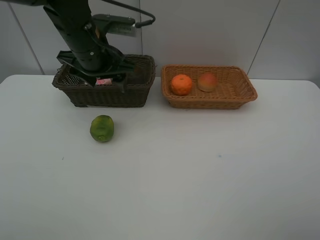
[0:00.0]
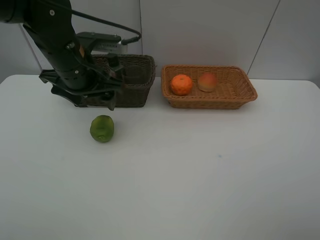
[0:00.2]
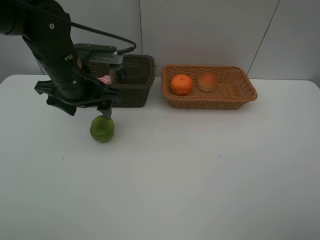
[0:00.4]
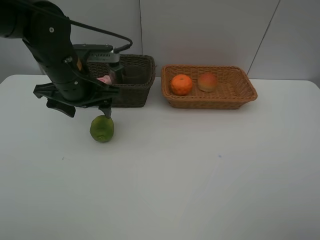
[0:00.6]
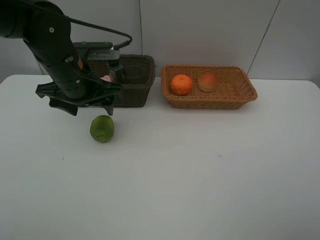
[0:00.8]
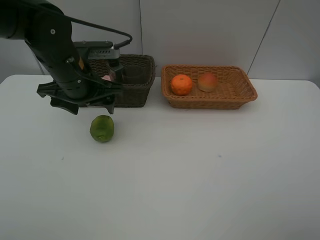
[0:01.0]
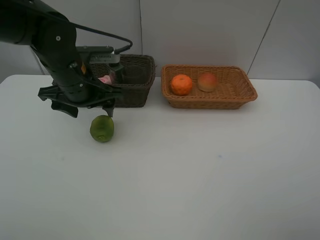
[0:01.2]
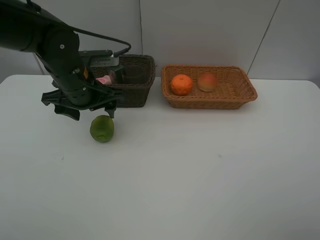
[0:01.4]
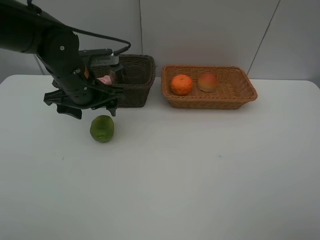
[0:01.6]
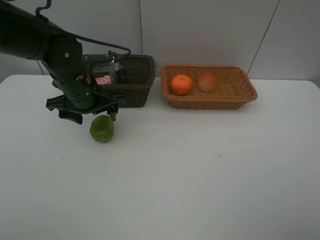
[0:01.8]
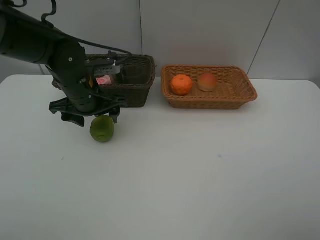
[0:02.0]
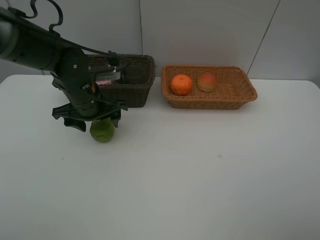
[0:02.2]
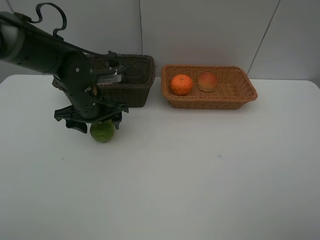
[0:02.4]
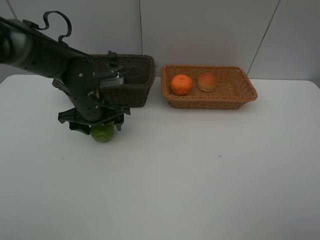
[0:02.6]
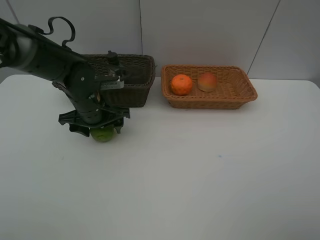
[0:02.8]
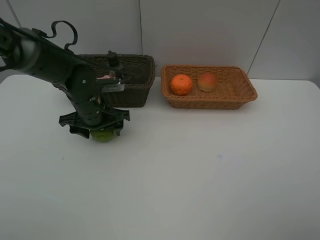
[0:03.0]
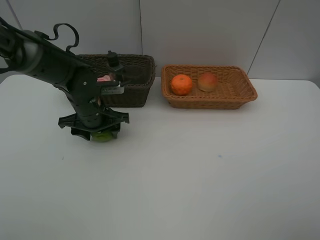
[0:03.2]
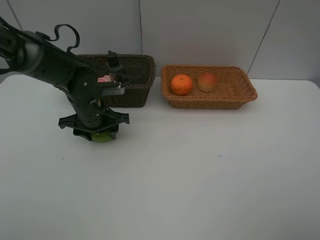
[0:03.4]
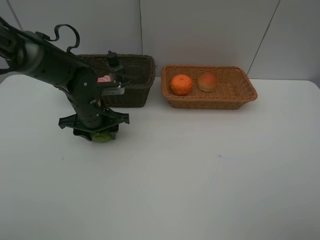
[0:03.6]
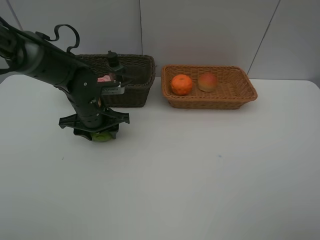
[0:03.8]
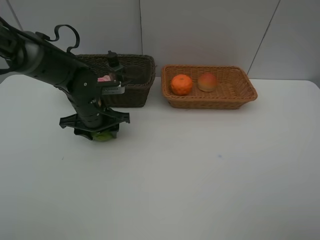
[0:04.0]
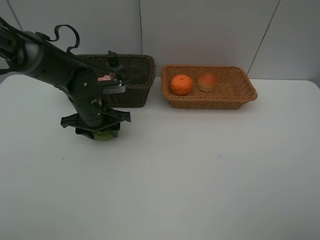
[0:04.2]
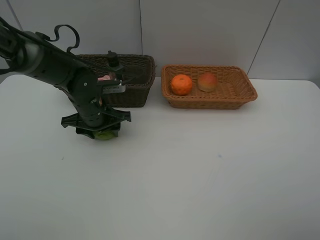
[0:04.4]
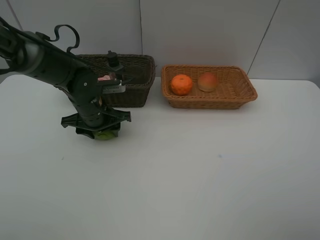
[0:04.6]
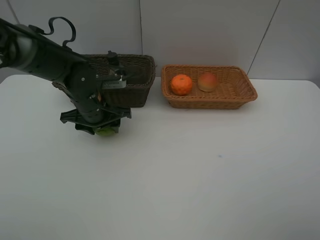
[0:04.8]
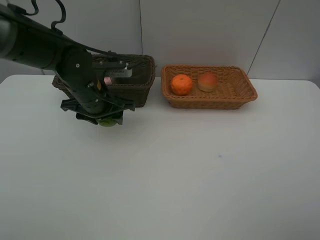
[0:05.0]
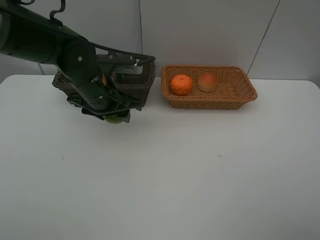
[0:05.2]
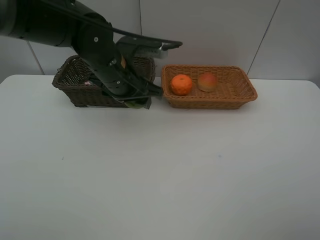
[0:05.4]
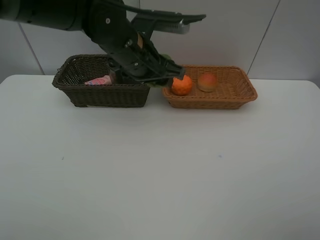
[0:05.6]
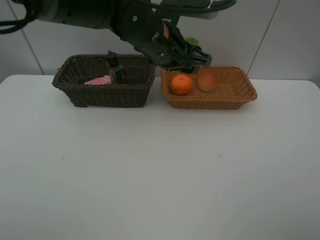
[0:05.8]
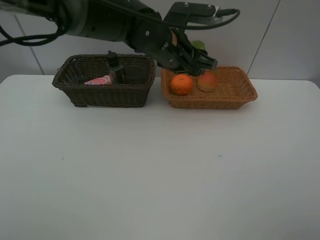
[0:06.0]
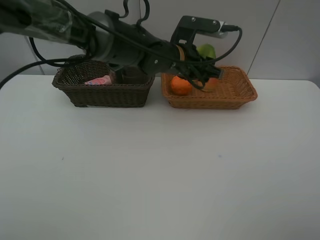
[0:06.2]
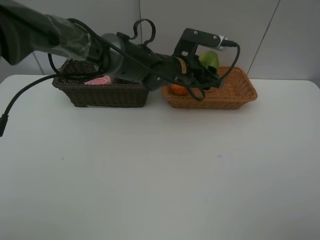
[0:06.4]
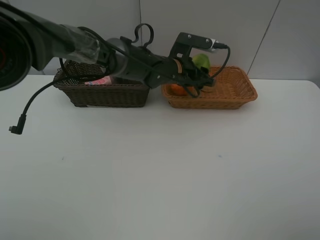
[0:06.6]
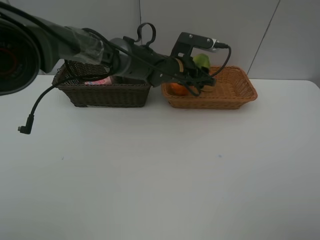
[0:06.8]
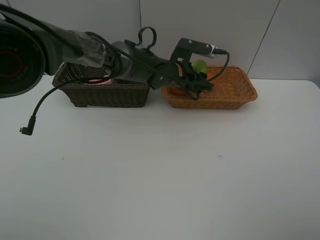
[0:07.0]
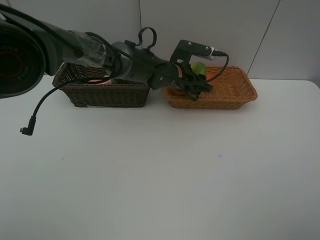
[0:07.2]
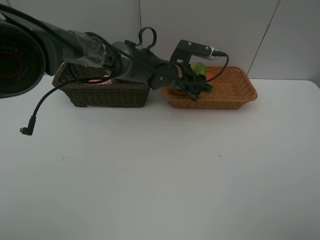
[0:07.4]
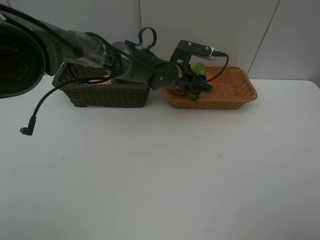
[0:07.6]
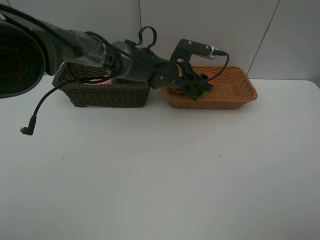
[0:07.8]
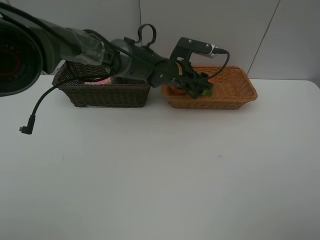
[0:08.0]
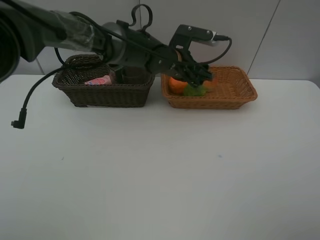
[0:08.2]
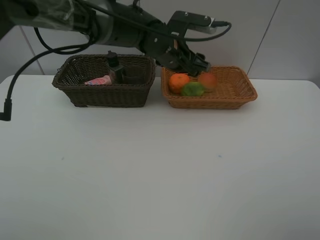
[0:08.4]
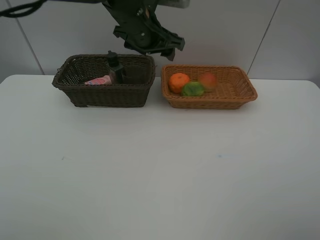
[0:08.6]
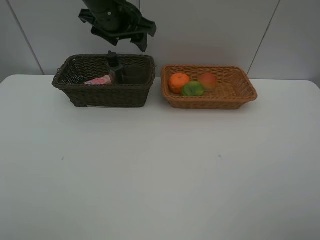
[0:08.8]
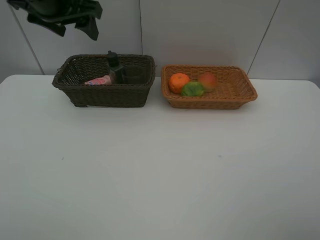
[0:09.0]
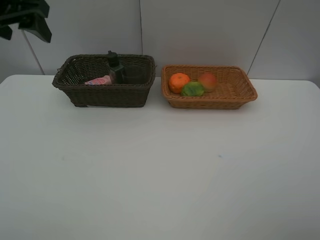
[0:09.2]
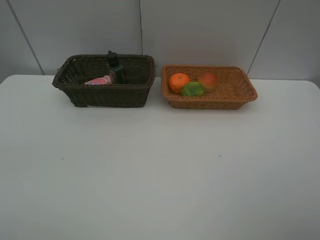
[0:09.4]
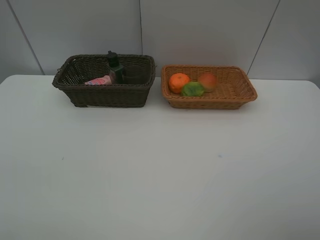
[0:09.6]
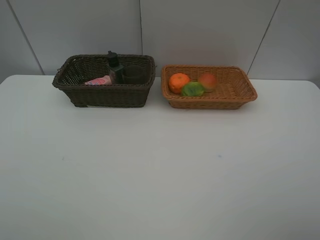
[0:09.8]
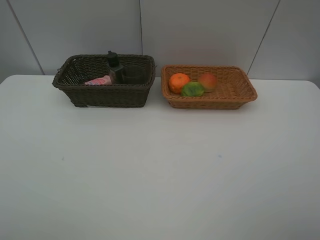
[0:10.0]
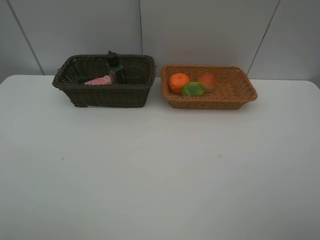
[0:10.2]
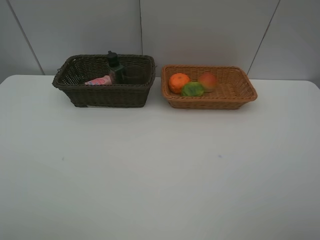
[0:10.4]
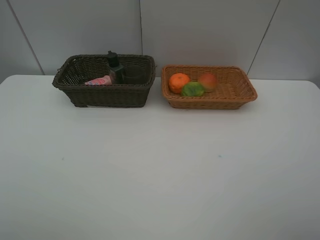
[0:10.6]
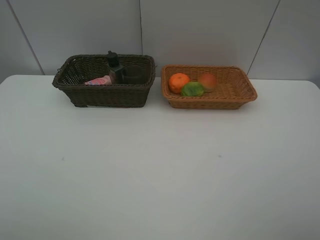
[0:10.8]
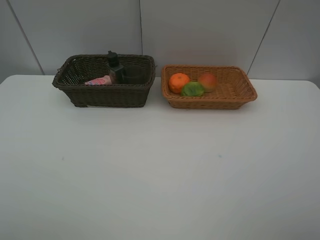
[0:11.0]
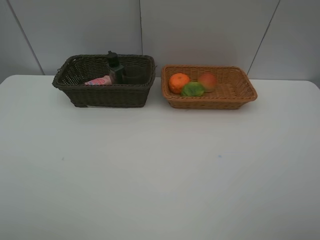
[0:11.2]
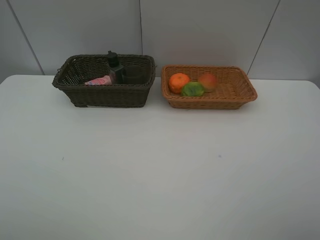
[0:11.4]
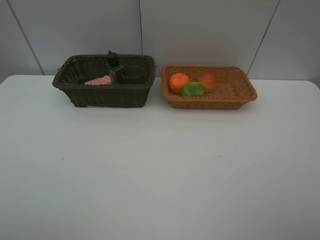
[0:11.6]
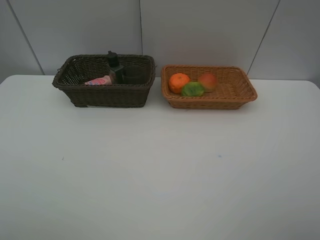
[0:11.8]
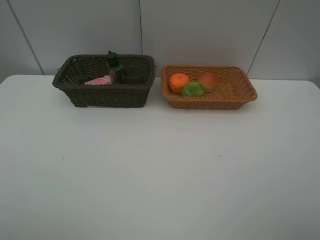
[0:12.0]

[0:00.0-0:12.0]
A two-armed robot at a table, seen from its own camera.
Task of the whole recording: place multiple objects separately in different baskets.
0:00.0 to 0:01.6: The left gripper heads downward, covering some 5 cm.
0:01.6 to 0:03.0: The left gripper moves downward, roughly 5 cm.
0:03.0 to 0:04.4: Neither gripper changes place.
0:04.4 to 0:06.0: The left gripper shifts about 20 cm to the right and upward.
0:06.0 to 0:07.6: The left gripper shifts approximately 10 cm downward and forward.
0:07.6 to 0:09.0: The left gripper shifts some 30 cm to the left and upward.
0:09.0 to 0:10.4: The left gripper travels backward by some 35 cm.

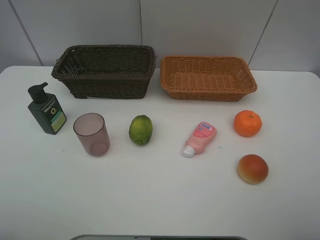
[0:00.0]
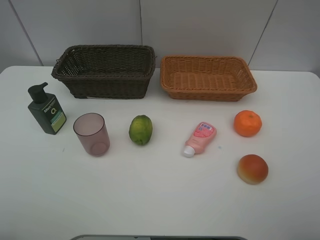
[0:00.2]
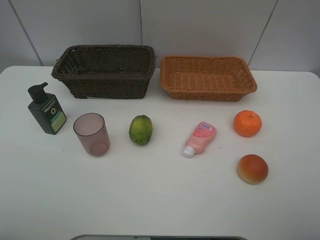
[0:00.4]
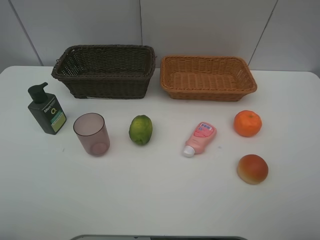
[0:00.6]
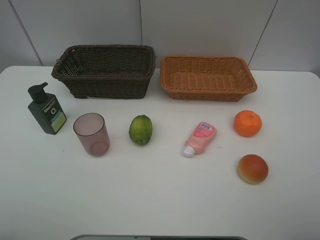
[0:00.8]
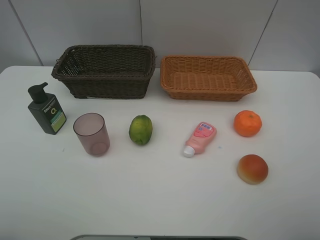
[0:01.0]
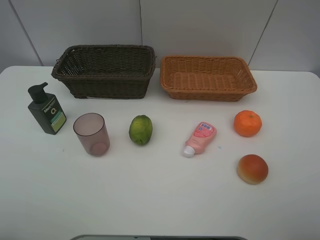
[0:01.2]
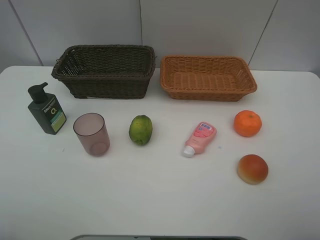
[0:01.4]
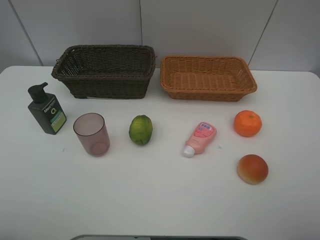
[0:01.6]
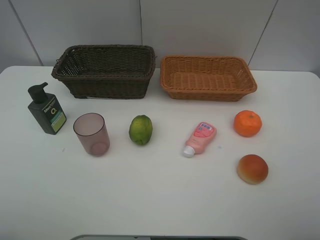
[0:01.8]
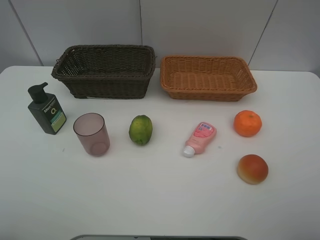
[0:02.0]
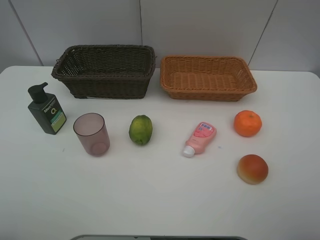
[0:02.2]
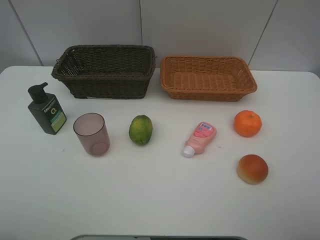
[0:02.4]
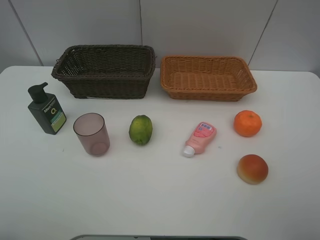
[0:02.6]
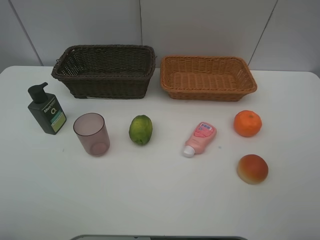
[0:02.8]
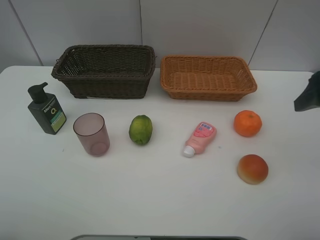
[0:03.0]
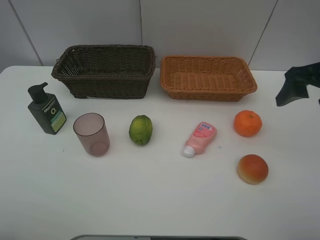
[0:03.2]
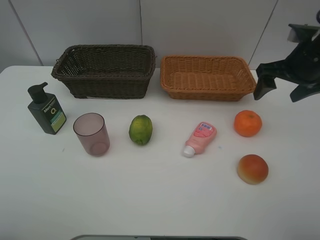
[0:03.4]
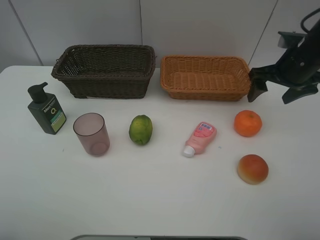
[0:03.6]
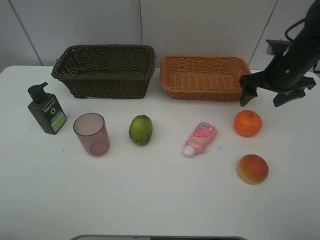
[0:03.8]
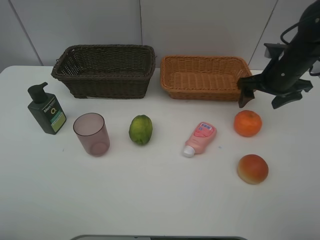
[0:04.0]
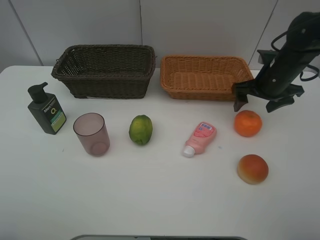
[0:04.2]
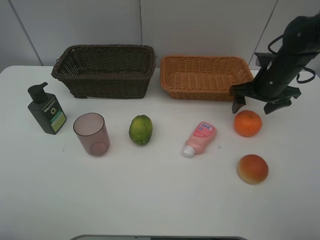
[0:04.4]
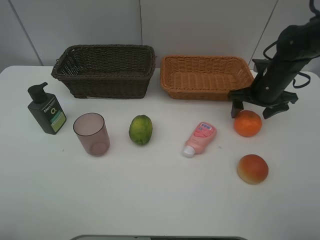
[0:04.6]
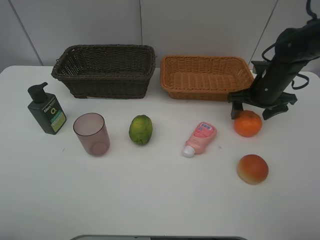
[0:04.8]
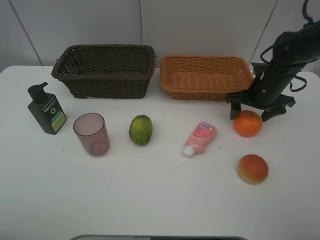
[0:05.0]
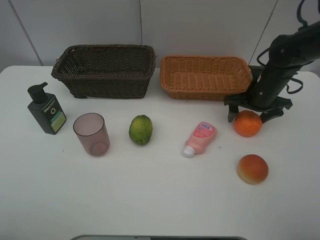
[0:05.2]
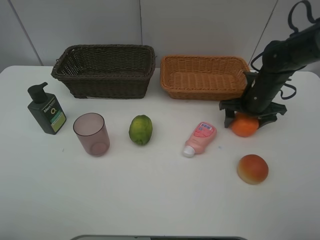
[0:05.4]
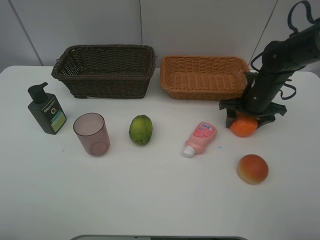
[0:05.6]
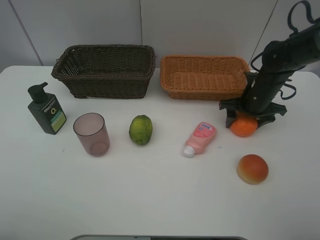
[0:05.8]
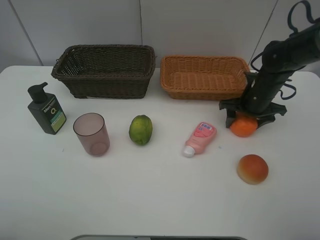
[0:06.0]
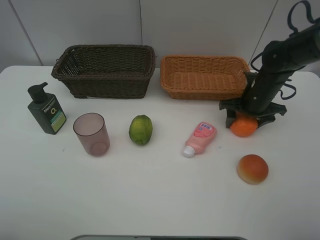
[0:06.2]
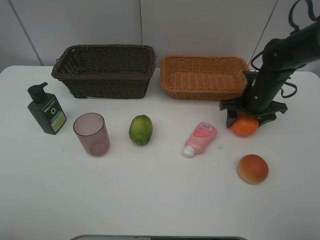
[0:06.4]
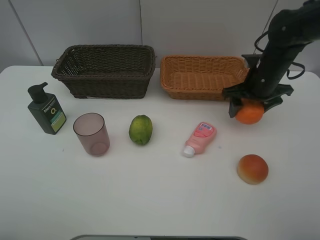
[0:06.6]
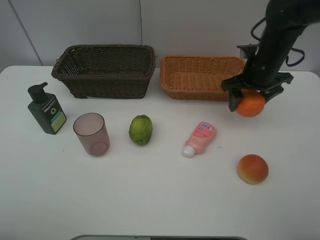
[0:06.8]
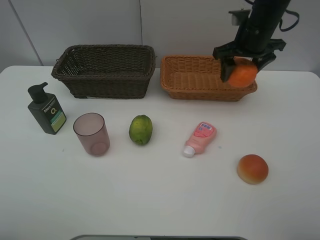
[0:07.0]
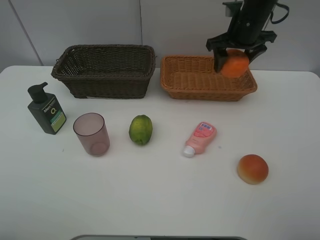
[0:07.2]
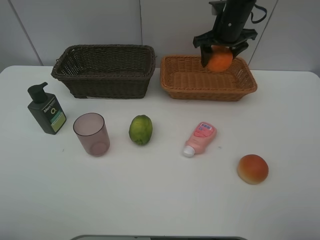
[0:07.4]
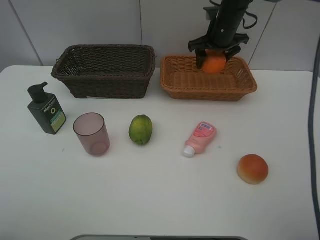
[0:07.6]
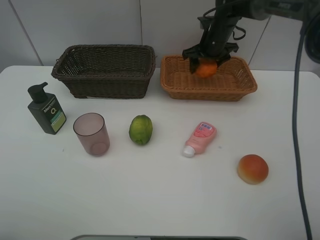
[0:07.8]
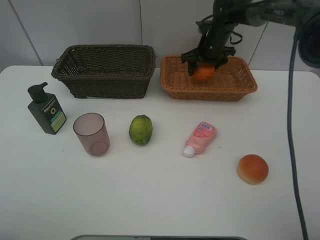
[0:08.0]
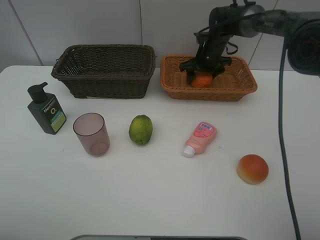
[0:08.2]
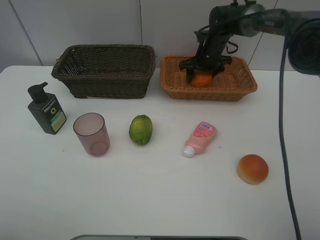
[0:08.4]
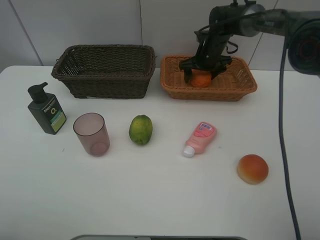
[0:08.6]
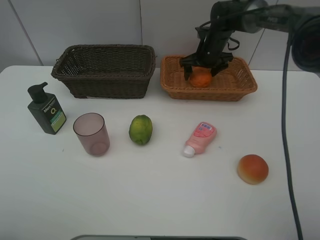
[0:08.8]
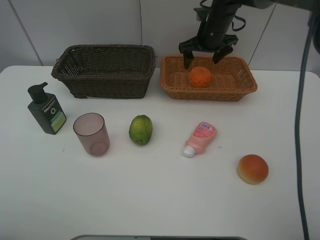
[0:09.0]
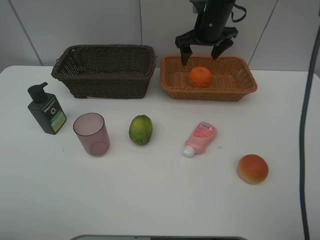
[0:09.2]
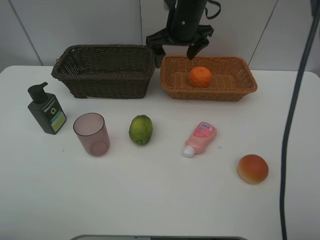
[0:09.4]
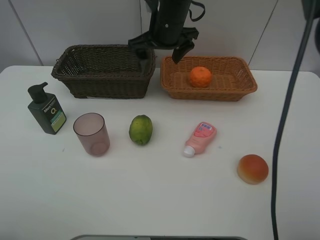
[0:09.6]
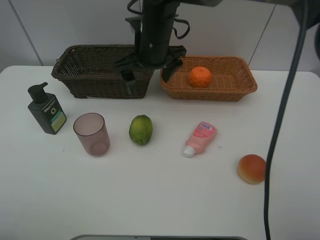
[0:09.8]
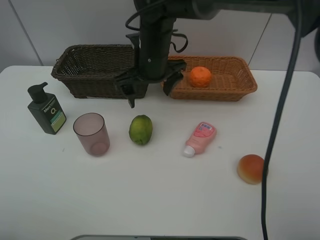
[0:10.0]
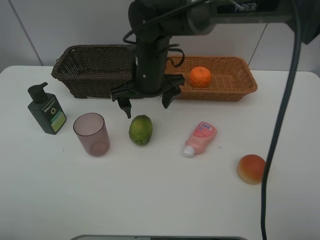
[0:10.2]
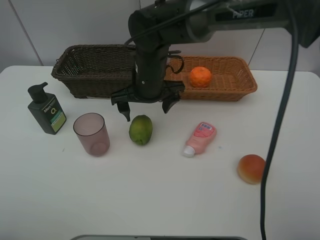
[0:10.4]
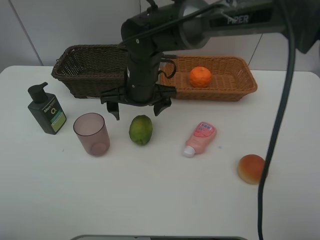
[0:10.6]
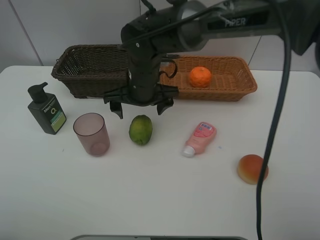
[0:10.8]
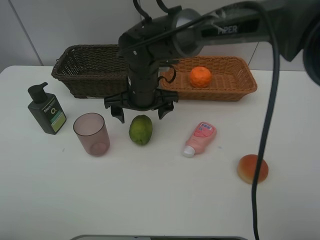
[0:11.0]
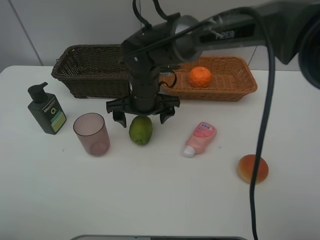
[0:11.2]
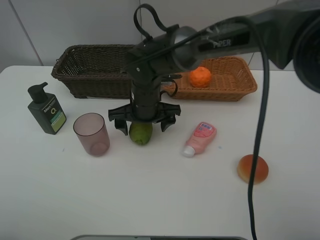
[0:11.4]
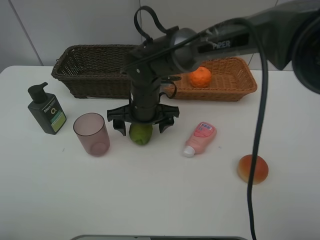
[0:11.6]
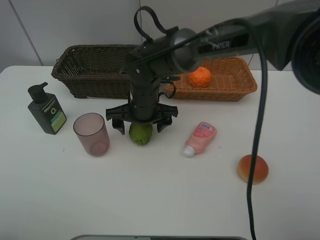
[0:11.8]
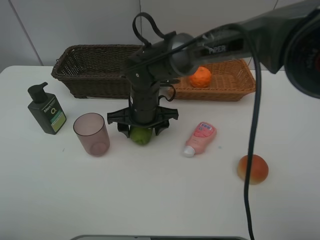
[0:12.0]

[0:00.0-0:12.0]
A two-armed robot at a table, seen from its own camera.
Task of the whole recording: place multiple objects separately in different baskets.
0:00.0 to 0:01.6: The two grippers keep their place.
0:01.6 to 0:03.0: The right gripper is displaced forward by approximately 20 cm.
0:03.0 to 0:04.4: The right gripper goes about 20 cm forward and downward.
0:04.4 to 0:06.0: The right gripper closes its fingers.
0:06.0 to 0:07.6: The right gripper goes roughly 20 cm forward, upward and to the left.
0:07.6 to 0:09.0: The right gripper travels downward and back again, some 10 cm each way, and opens up.
0:09.0 to 0:10.4: The right gripper shifts roughly 20 cm to the left and backward.
0:10.4 to 0:12.0: The right gripper is displaced downward by approximately 5 cm, and closes.
